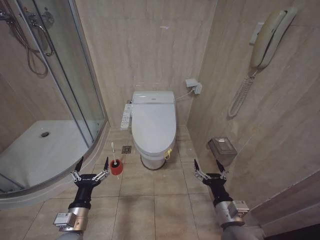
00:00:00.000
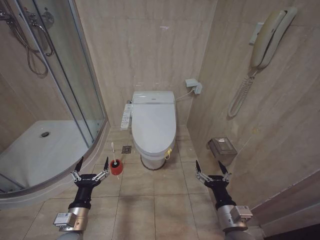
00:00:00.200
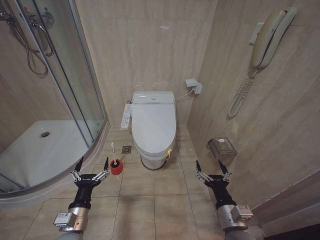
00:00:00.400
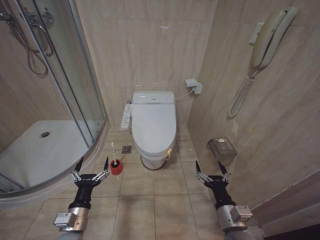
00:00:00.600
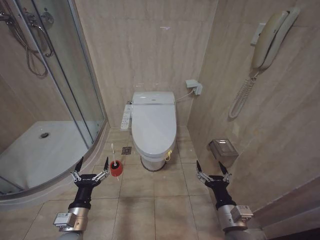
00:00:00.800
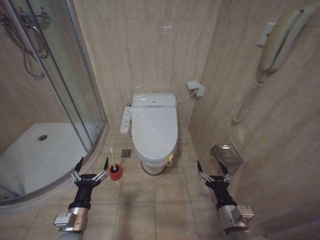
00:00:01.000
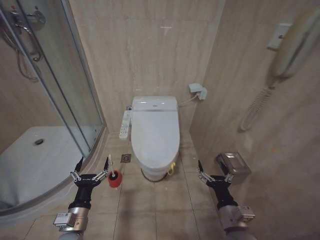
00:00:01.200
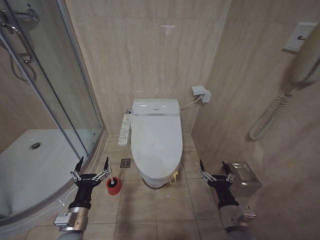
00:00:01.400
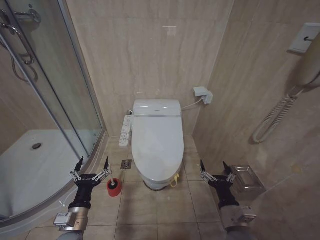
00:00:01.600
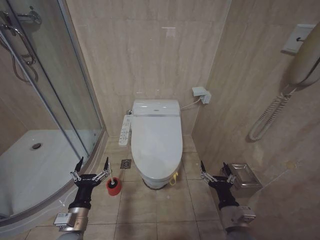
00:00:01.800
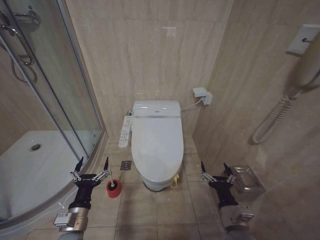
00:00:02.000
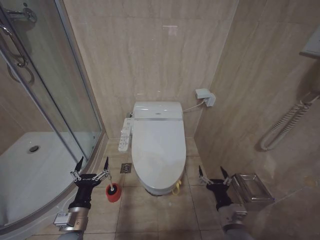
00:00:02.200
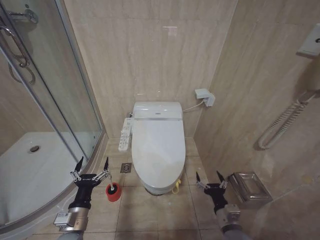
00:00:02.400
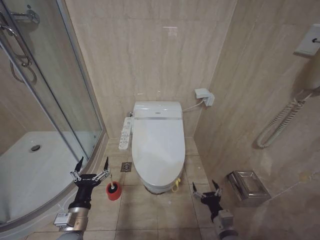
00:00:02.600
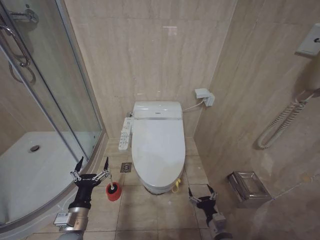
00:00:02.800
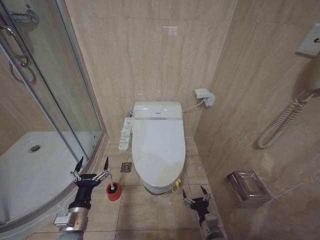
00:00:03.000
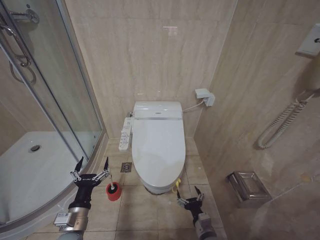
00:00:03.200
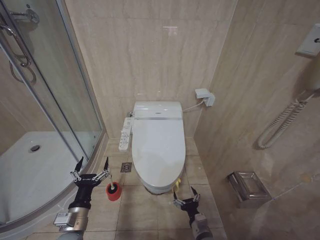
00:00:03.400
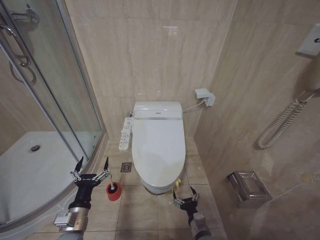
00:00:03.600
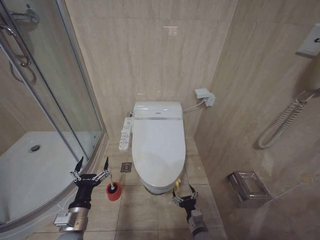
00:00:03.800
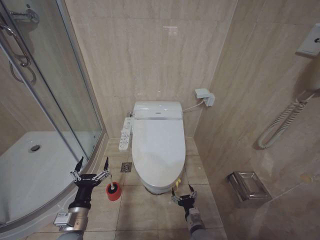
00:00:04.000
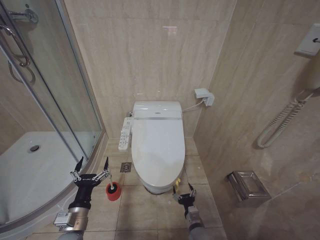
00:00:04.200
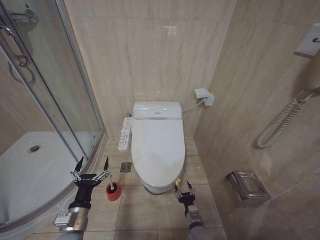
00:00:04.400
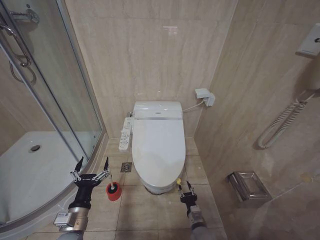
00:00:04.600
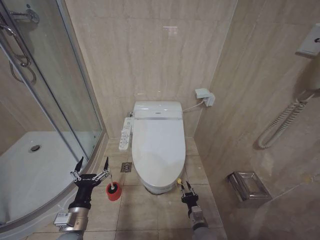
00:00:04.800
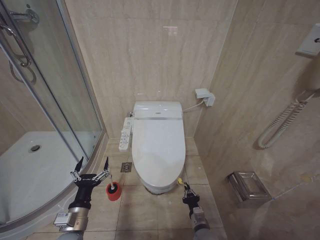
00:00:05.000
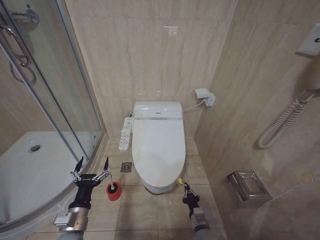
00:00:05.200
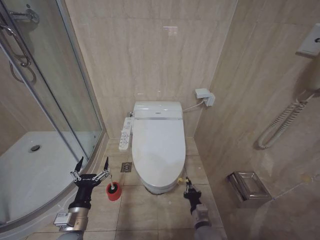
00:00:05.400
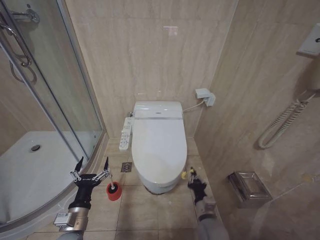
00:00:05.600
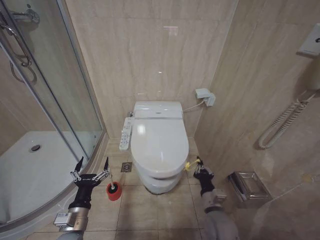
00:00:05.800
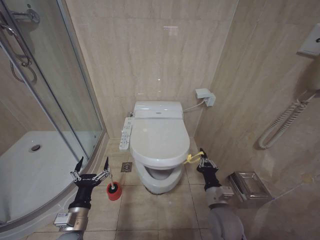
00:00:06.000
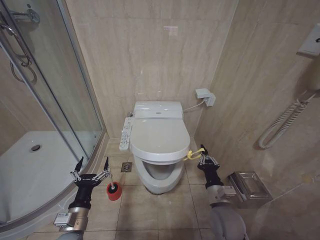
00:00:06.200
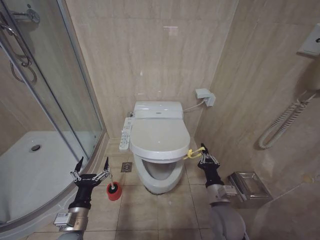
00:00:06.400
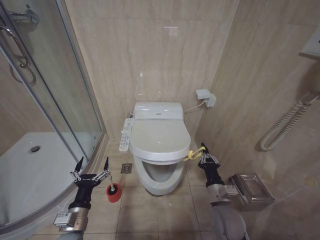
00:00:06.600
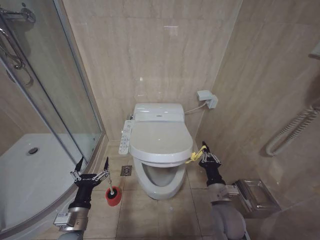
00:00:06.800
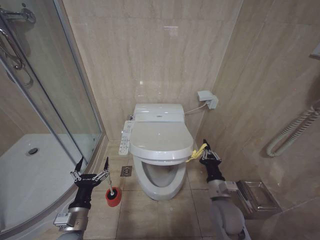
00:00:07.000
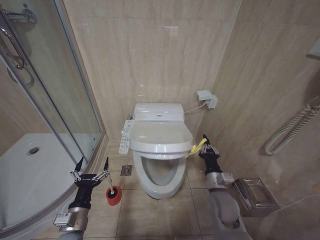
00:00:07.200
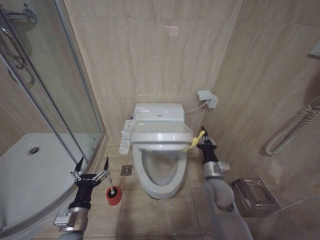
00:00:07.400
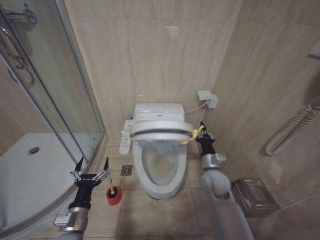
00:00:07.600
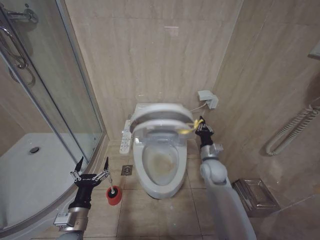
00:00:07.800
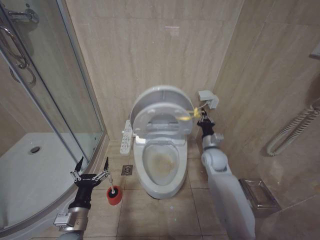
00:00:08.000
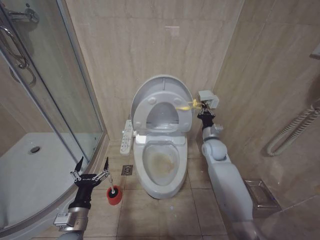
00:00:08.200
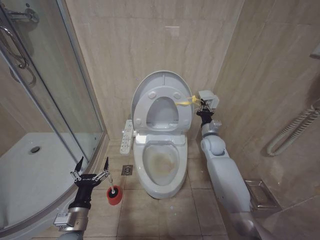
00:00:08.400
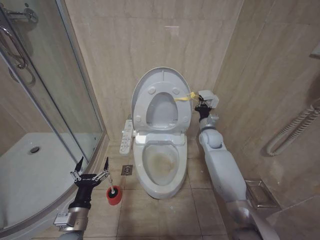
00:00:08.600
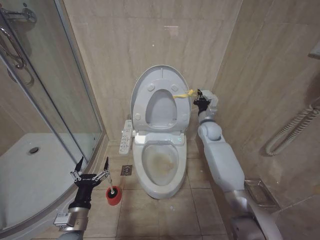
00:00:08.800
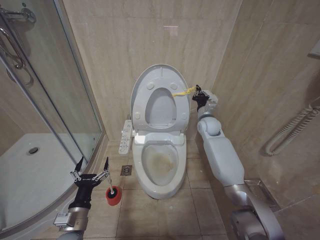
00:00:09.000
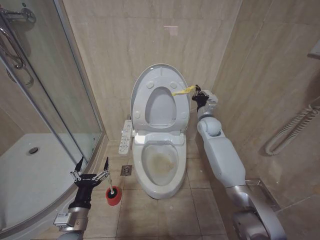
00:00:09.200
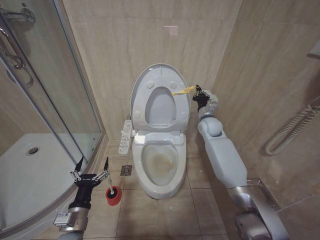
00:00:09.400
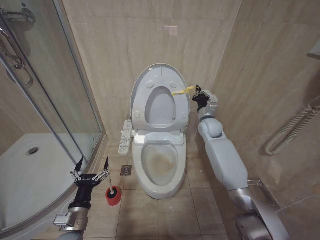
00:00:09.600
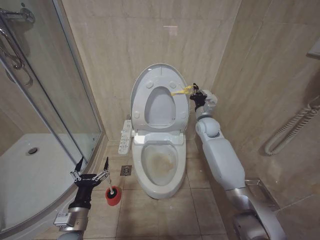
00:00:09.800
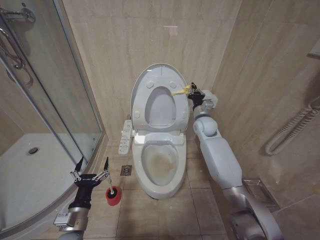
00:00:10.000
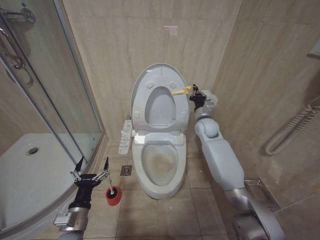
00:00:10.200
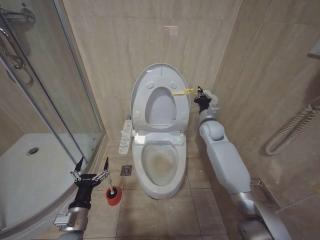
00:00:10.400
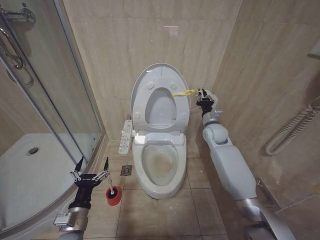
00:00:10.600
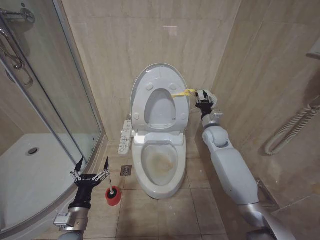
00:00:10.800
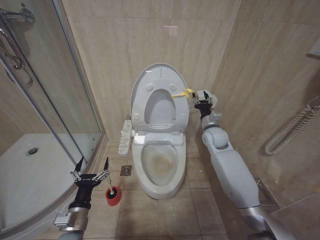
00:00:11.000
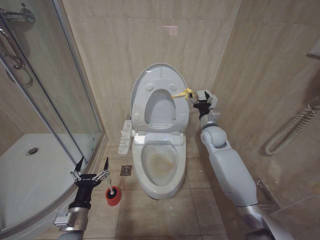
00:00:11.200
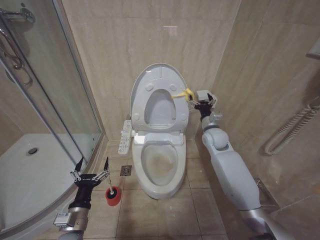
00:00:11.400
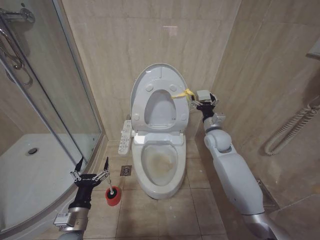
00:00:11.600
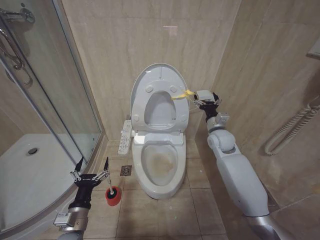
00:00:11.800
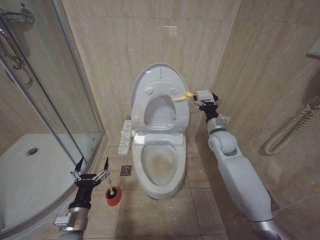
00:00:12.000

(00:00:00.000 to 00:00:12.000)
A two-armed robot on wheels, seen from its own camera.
Task of the whole recording: Open the toilet lid, clean the toilet bowl with a toilet brush, close the toilet lid, and flush.
00:00:01.600 - 00:00:03.000: The right gripper moves downward, approximately 15 cm.
00:00:03.000 - 00:00:04.400: The right gripper travels downward, to the left and forward by roughly 10 cm.
00:00:04.400 - 00:00:06.000: The right gripper goes approximately 15 cm upward, and closes its fingers.
00:00:06.000 - 00:00:07.600: The right gripper heads forward, covering about 10 cm.
00:00:07.600 - 00:00:09.000: The right gripper goes roughly 25 cm forward and upward.
00:00:09.000 - 00:00:10.400: The grippers stay close to where they were, moving slightly.
00:00:10.400 - 00:00:12.000: The right gripper goes about 5 cm backward, and opens its fingers.

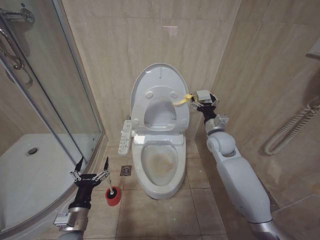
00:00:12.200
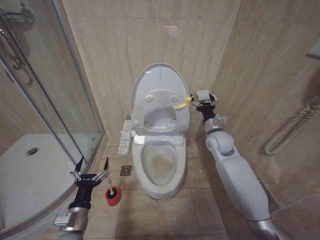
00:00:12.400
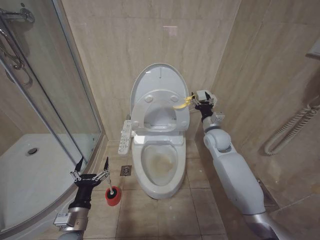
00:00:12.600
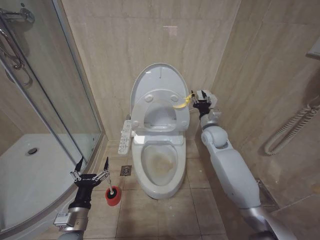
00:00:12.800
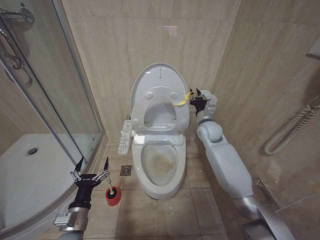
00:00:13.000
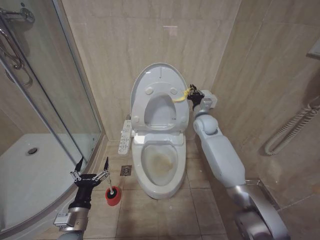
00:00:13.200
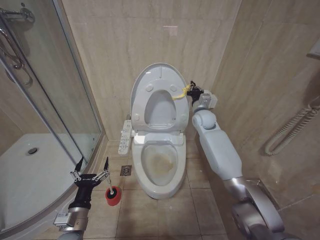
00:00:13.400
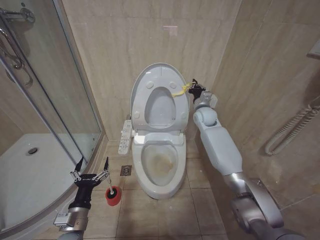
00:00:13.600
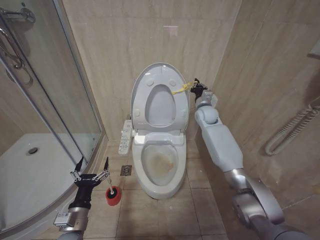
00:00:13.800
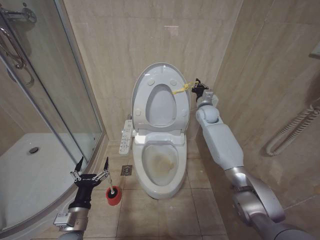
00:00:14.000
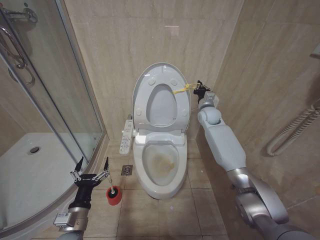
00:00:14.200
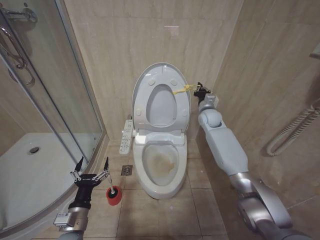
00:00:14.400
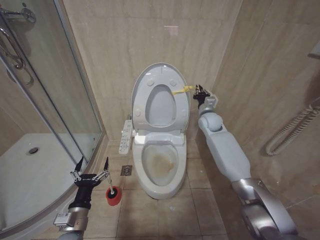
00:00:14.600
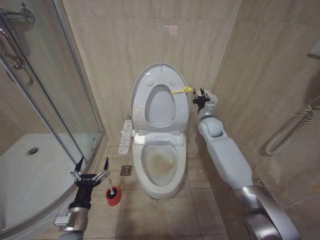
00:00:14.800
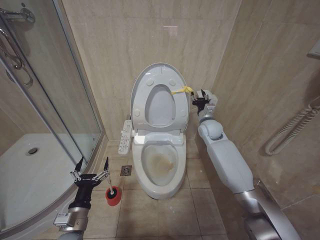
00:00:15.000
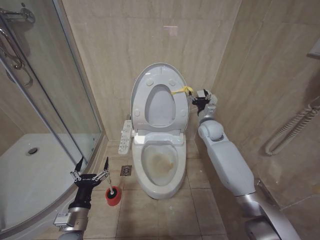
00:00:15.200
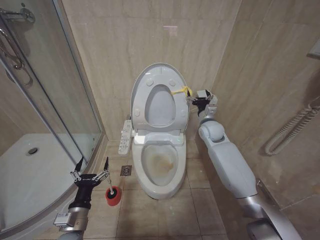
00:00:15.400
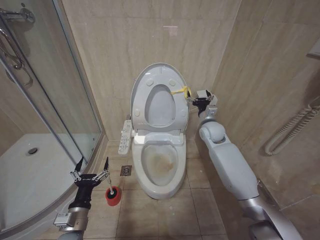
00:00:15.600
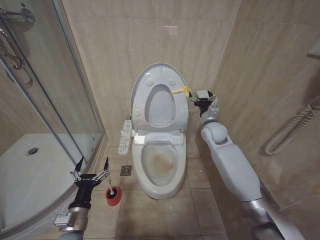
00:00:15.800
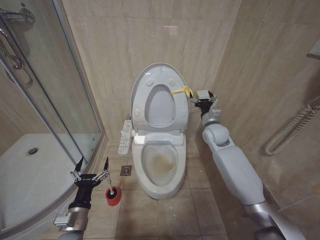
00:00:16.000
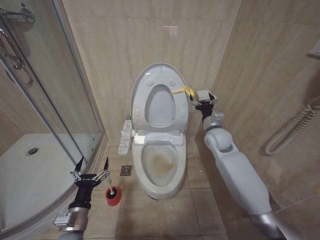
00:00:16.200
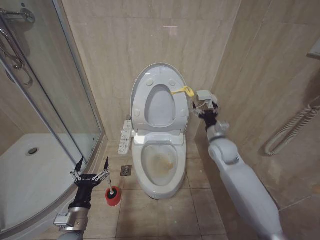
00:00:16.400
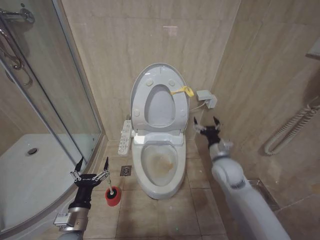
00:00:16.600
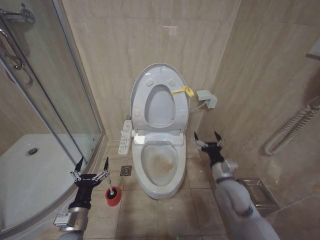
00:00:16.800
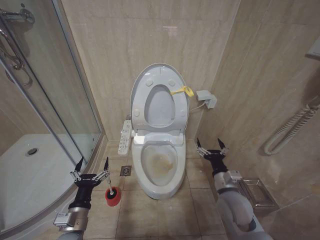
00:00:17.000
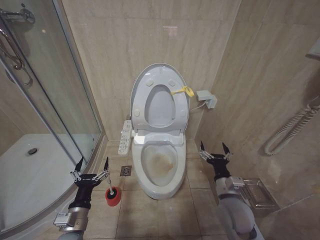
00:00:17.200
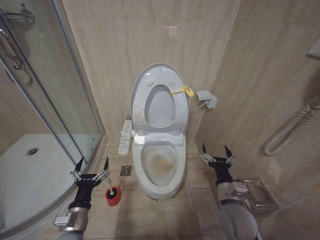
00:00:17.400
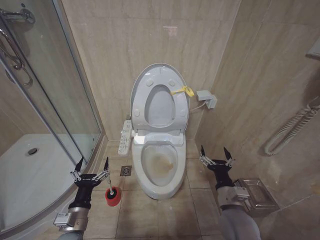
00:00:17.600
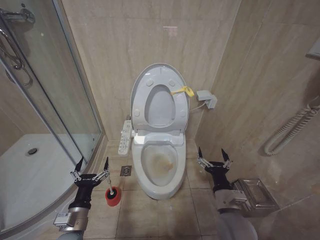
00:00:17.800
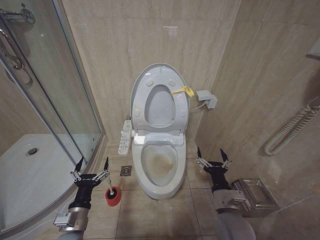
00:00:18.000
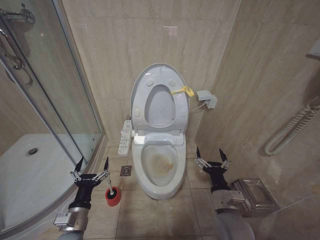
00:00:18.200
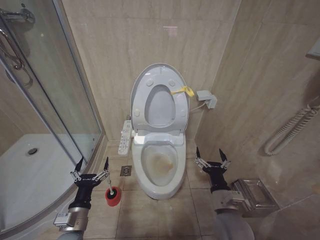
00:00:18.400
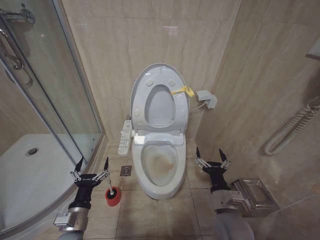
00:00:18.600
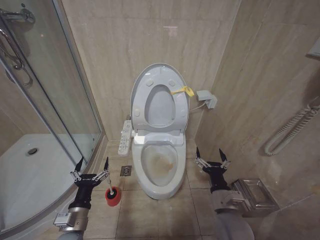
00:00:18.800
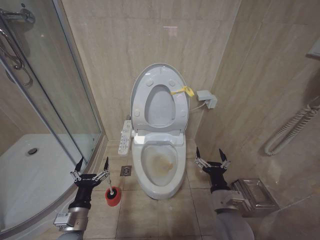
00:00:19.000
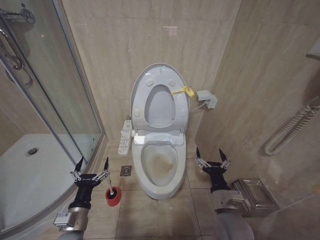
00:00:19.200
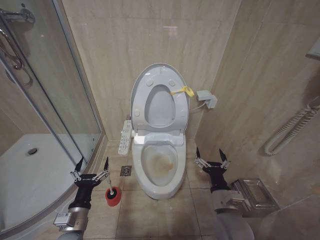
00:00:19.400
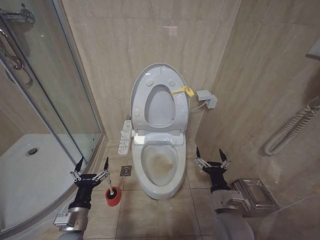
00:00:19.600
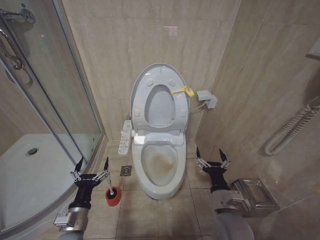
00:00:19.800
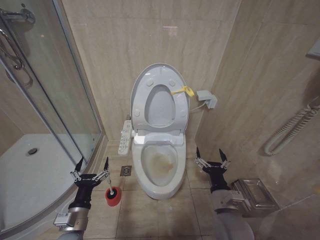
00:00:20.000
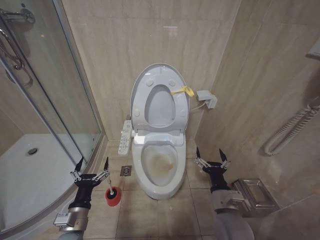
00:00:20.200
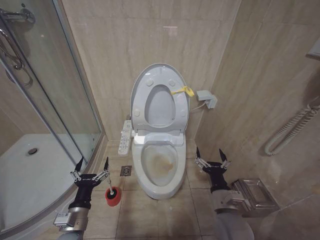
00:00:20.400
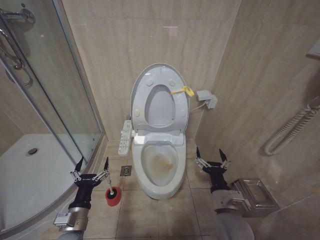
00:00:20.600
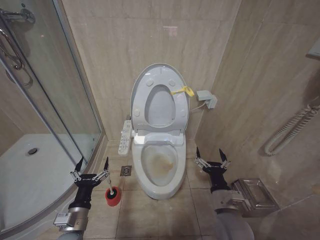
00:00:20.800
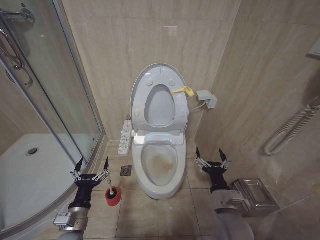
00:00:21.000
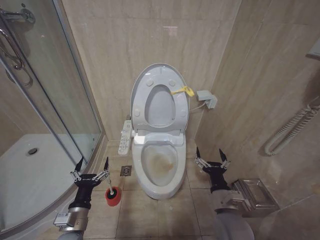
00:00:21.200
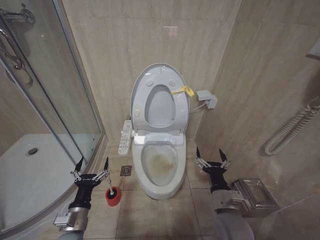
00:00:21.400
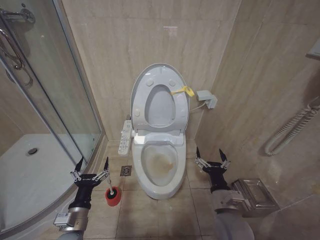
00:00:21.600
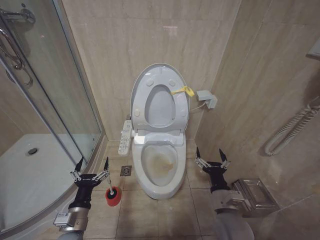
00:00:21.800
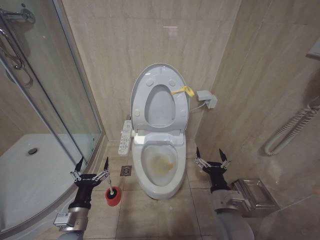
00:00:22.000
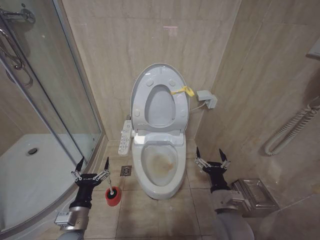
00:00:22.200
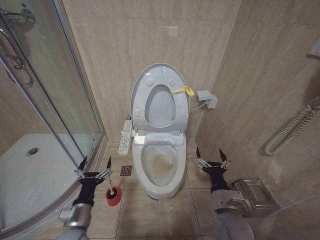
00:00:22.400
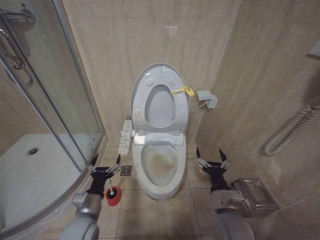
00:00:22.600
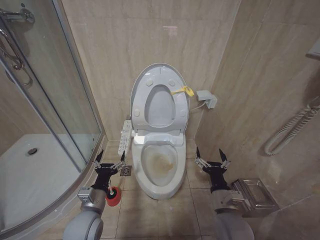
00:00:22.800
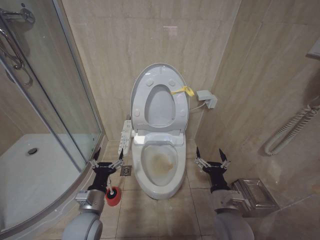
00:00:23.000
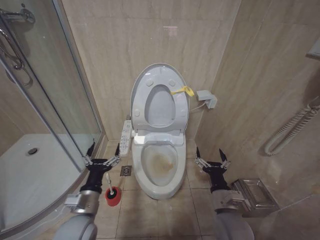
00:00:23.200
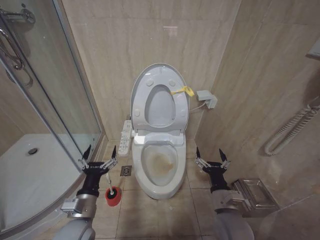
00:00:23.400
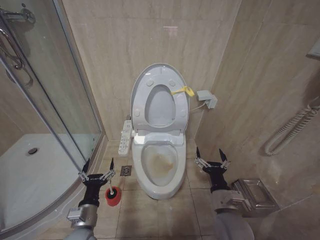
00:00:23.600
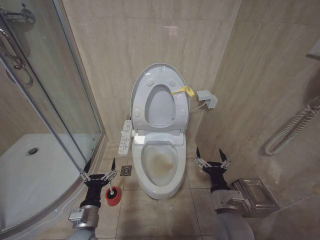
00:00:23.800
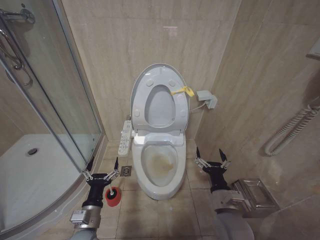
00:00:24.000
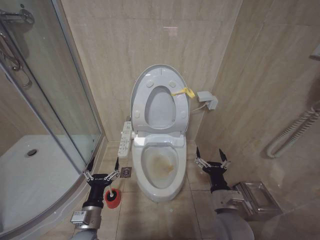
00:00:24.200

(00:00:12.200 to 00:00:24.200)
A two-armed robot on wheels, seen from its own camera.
Task of the whole recording: Open the toilet lid, clean the toilet bowl with a toilet brush, close the toilet lid, and flush.
00:00:12.200 - 00:00:13.800: The right gripper is displaced forward and upward by some 15 cm, and closes.
00:00:13.800 - 00:00:15.200: The right gripper is displaced backward by about 5 cm, and opens its fingers.
00:00:15.200 - 00:00:16.600: The right gripper moves backward, about 15 cm, and opens.
00:00:16.600 - 00:00:18.200: The right gripper shifts some 20 cm backward and downward.
00:00:18.200 - 00:00:21.200: Both grippers stay put.
00:00:21.200 - 00:00:22.600: The grippers stay close to where they were, moving slightly.
00:00:22.600 - 00:00:24.200: There are only small adjustments of the grippers.
